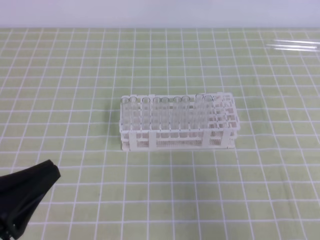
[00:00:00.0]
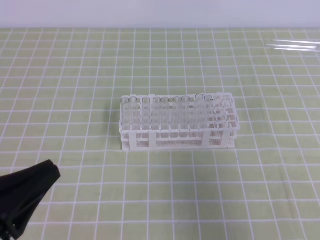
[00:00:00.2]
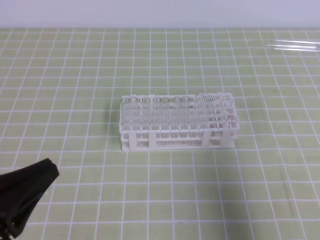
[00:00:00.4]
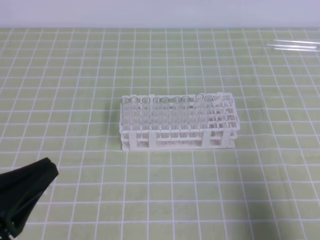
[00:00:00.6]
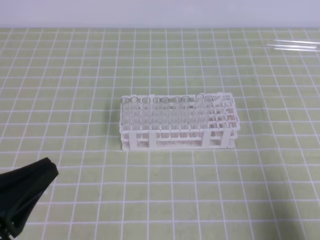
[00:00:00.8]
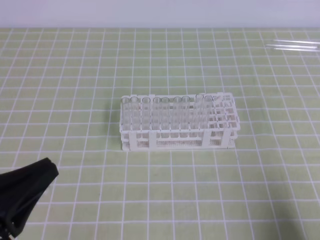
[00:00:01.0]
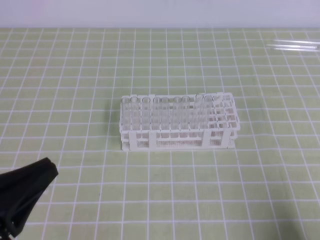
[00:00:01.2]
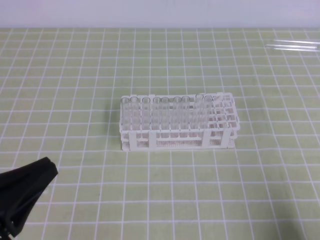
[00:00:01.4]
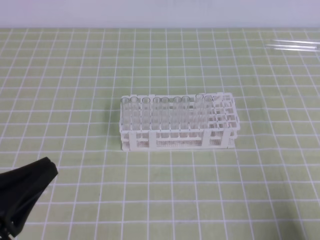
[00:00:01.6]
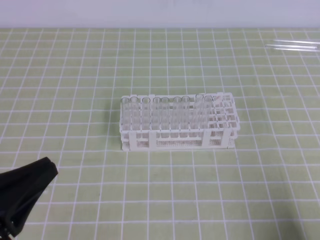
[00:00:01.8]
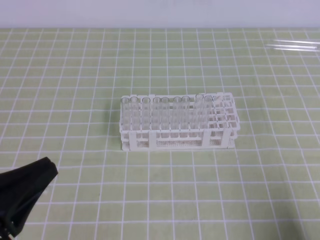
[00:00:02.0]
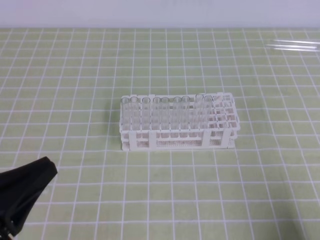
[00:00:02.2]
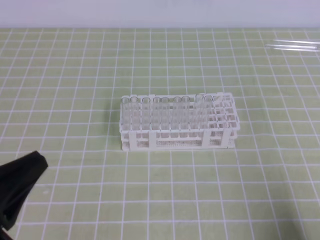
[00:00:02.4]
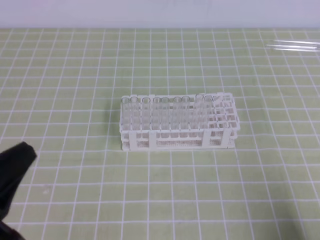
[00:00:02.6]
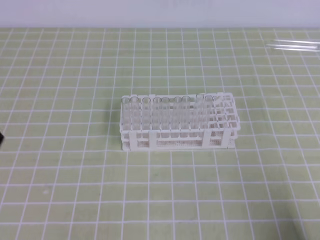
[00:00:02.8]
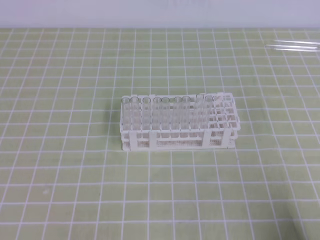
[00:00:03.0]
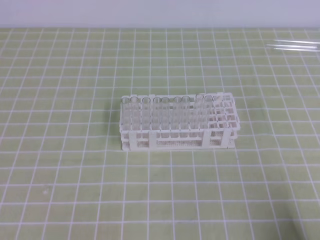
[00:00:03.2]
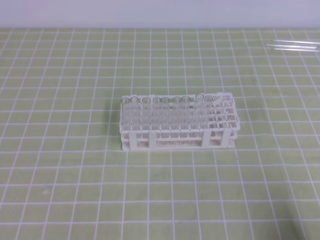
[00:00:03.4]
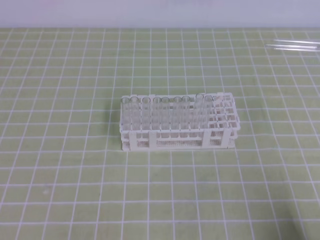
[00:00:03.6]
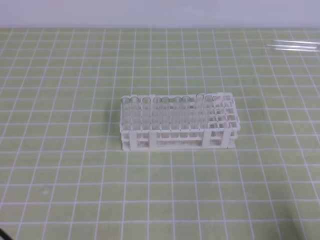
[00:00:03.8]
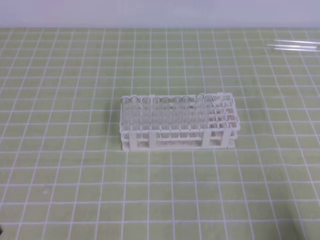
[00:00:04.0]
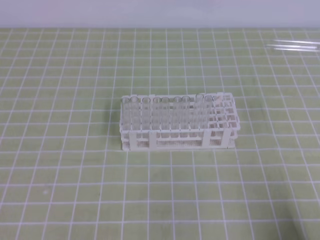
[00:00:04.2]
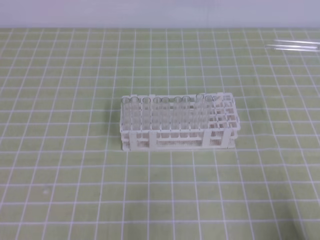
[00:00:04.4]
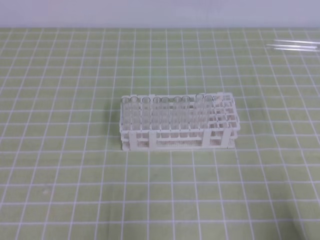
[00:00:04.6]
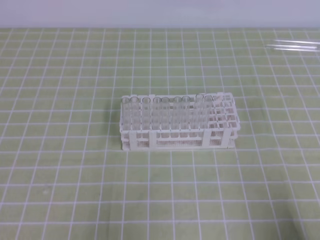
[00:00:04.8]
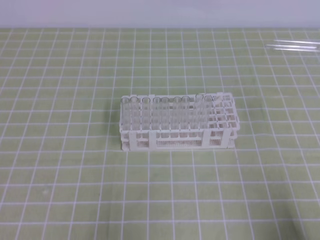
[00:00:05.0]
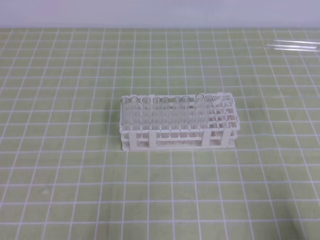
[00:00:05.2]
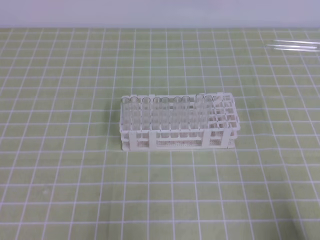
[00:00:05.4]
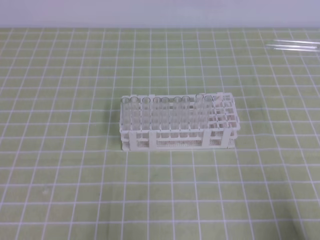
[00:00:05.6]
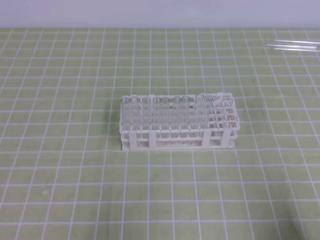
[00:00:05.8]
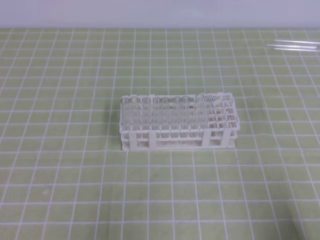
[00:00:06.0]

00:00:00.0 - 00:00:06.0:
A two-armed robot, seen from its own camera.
00:00:00.0 - 00:00:01.6: The right gripper is displaced downward and backward by about 20 cm.
00:00:03.0 - 00:00:04.4: The left gripper shifts about 5 cm downward.
